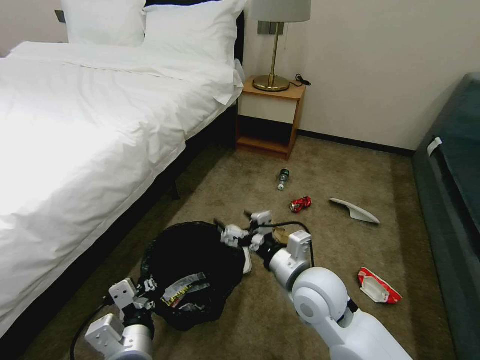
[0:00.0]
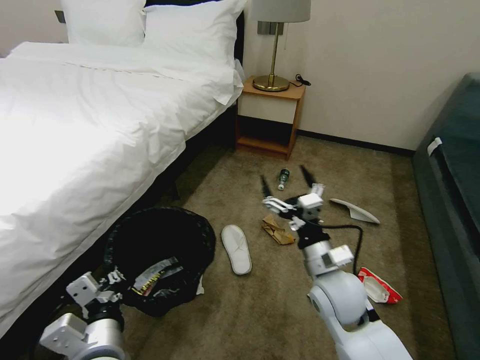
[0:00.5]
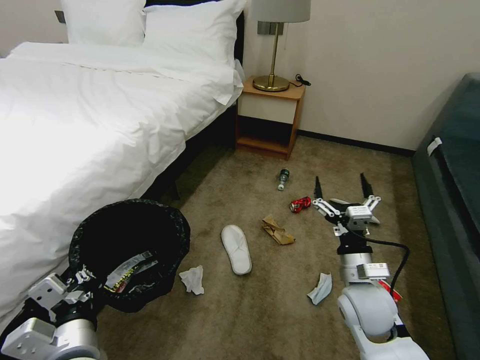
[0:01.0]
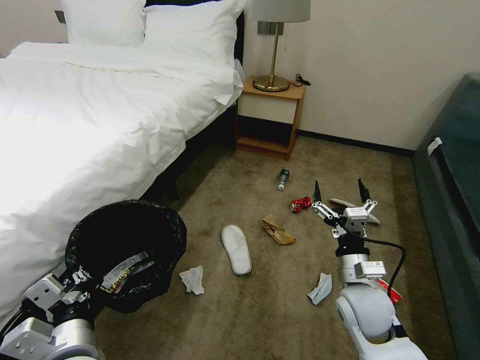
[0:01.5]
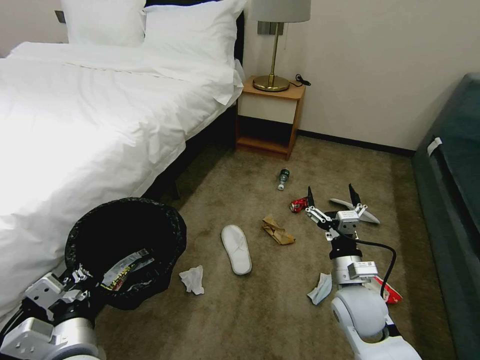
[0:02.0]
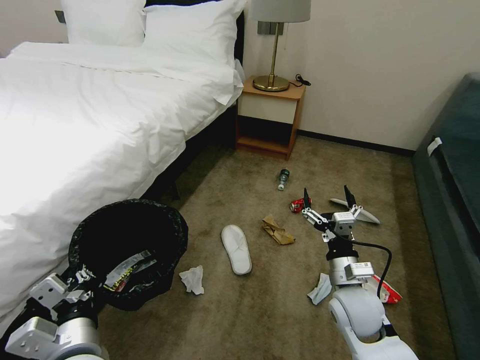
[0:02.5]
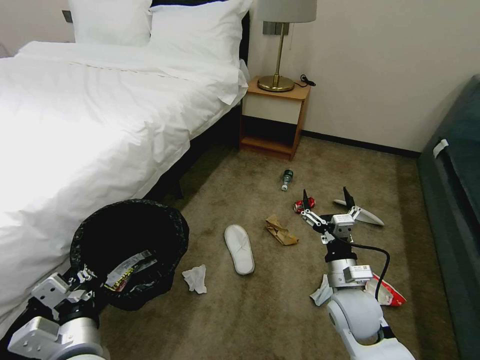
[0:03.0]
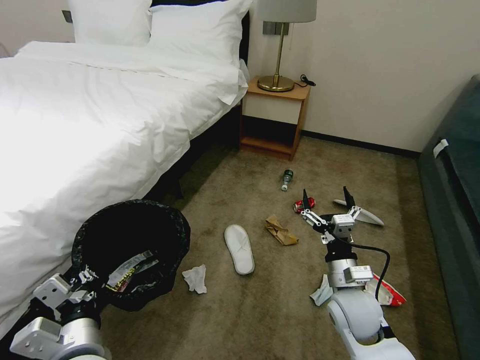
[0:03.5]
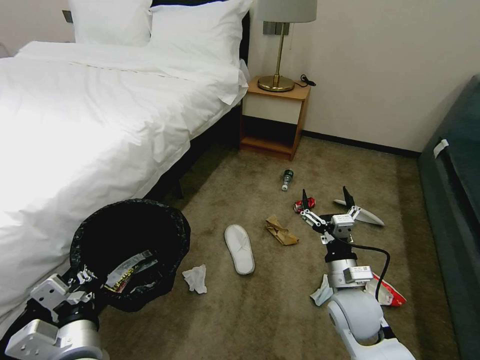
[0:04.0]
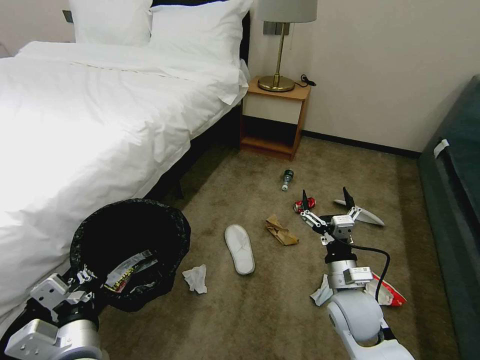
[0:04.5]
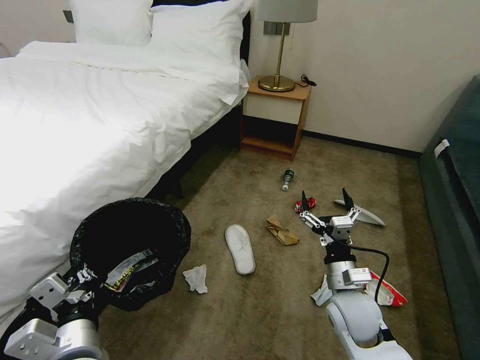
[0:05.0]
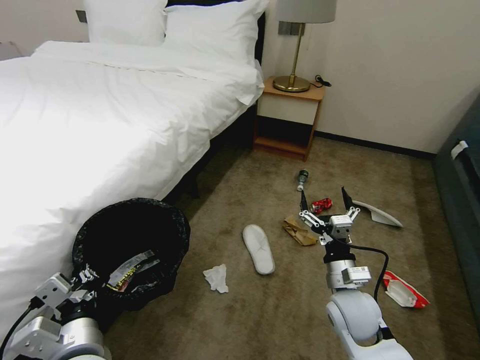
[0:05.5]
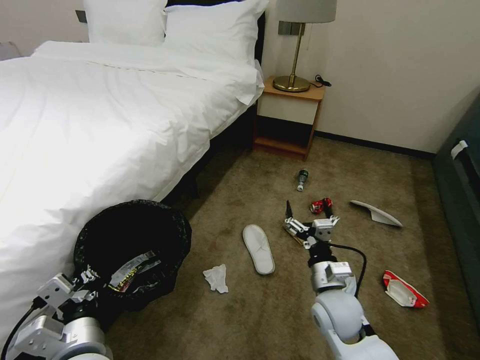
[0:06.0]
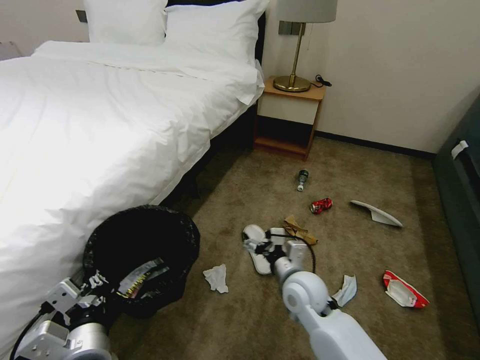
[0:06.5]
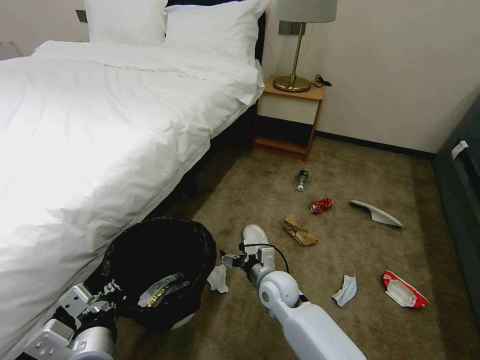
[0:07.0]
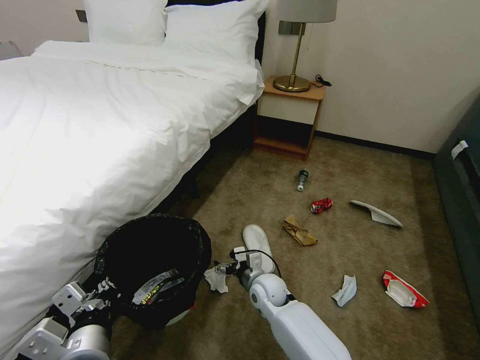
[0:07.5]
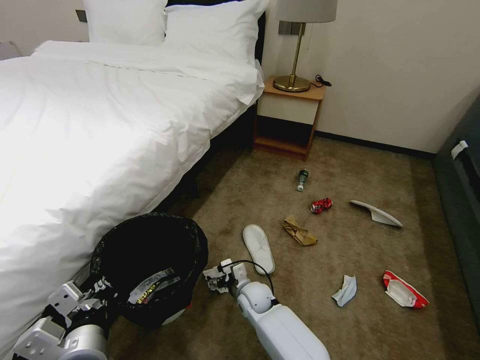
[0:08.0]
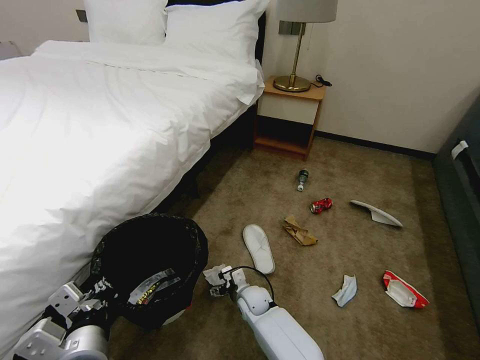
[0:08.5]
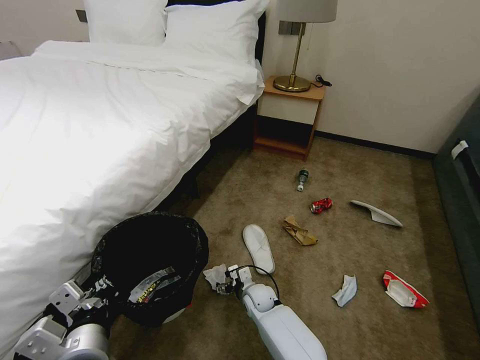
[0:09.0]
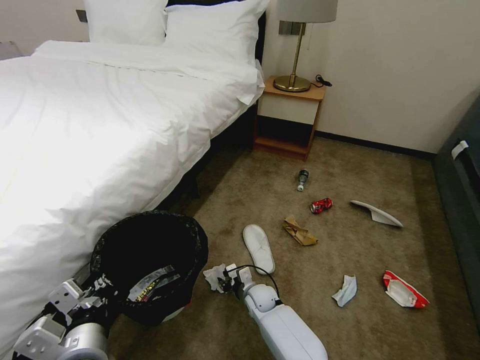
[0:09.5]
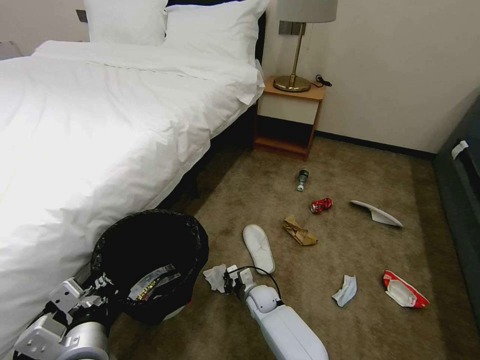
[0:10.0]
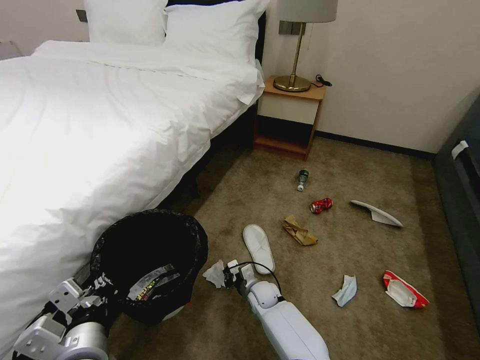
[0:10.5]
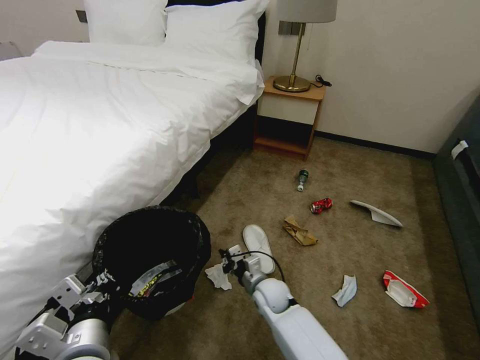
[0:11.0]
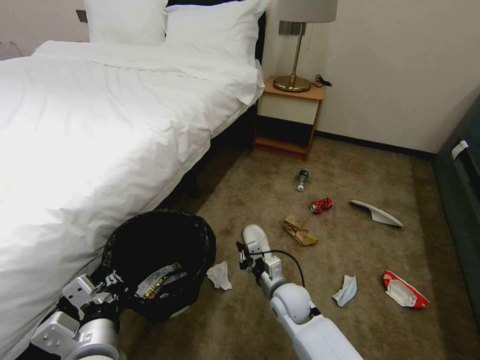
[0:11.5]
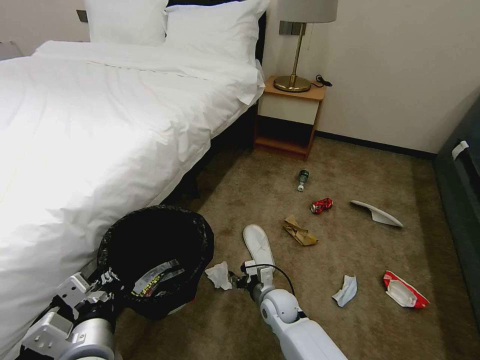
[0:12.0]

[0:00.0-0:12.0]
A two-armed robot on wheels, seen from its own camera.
Task of the whole recording: Pick up the trash bin, then pick up the garbage on the floor and place it into the trash bin.
0:00.0 to 0:02.0: The left gripper goes some 5 cm to the left; the right gripper is displaced to the right and downward by approximately 10 cm.
0:02.0 to 0:04.0: The two grippers keep their place.
0:06.0 to 0:08.0: The right gripper goes some 25 cm to the left, downward and forward.
0:08.0 to 0:10.0: The right gripper travels downward by some 5 cm, and closes up.
0:10.0 to 0:12.0: The right gripper heads upward, covering approximately 5 cm, and opens up.

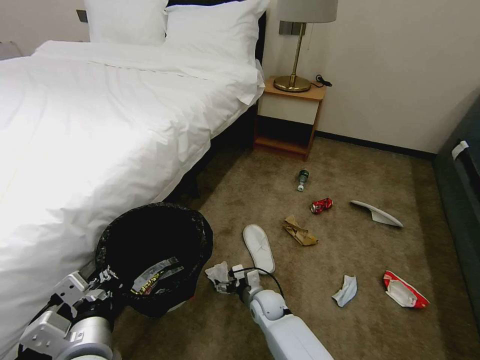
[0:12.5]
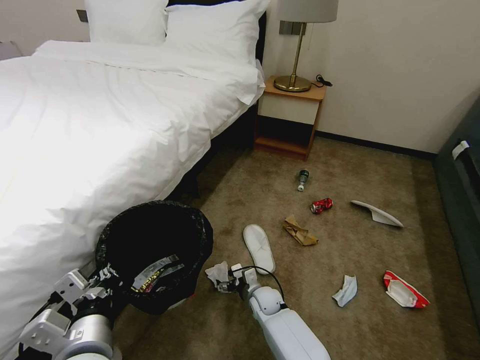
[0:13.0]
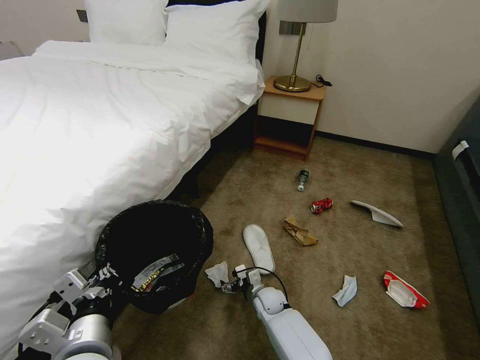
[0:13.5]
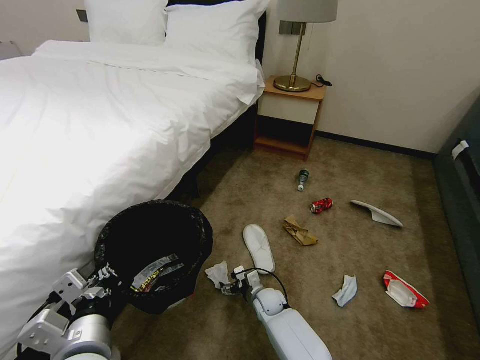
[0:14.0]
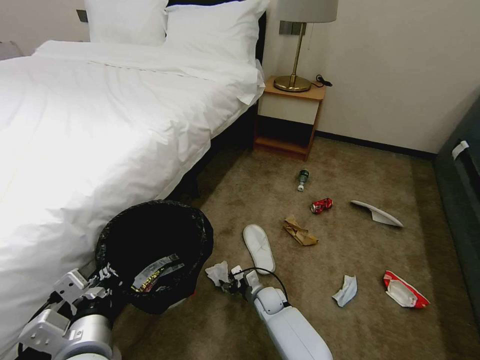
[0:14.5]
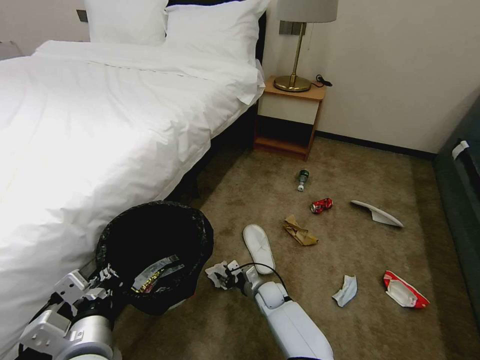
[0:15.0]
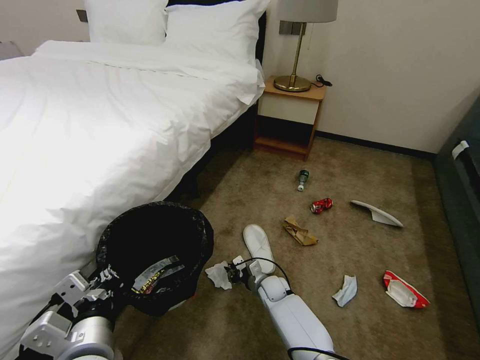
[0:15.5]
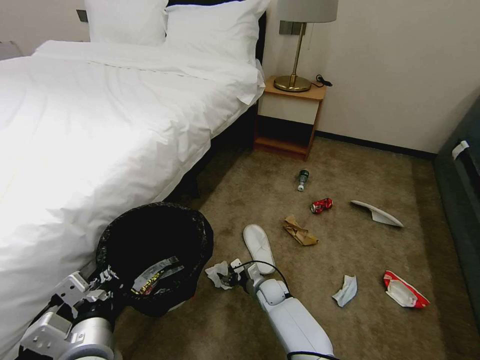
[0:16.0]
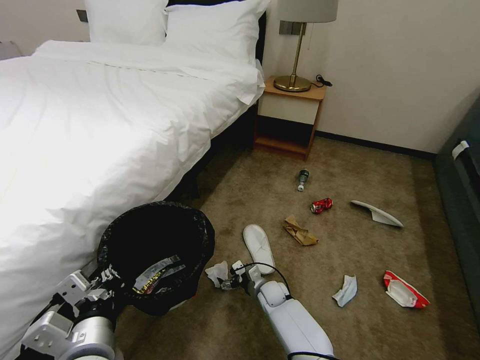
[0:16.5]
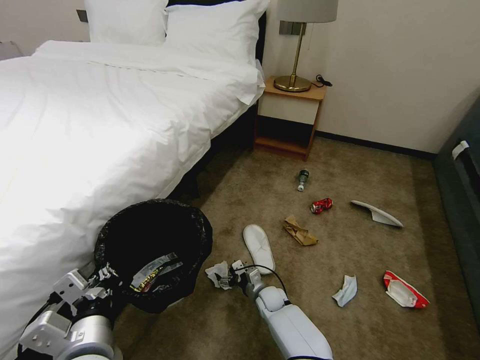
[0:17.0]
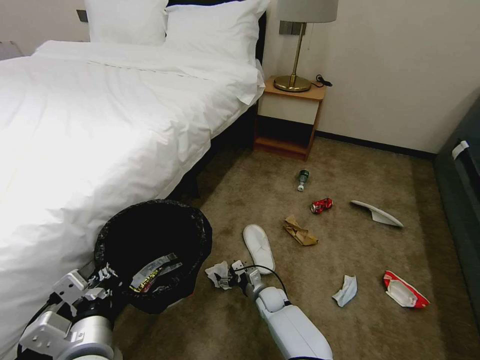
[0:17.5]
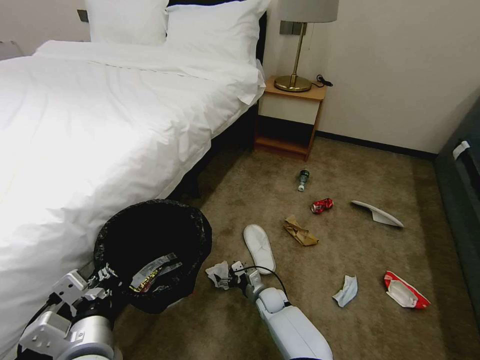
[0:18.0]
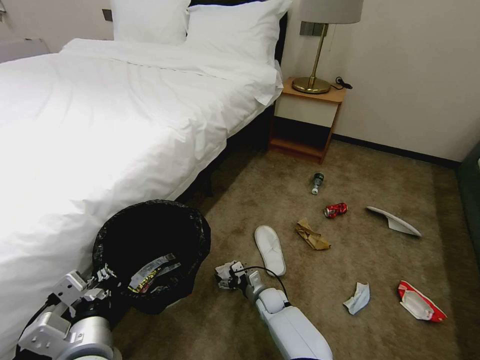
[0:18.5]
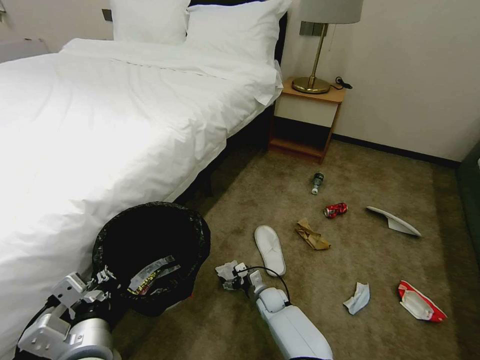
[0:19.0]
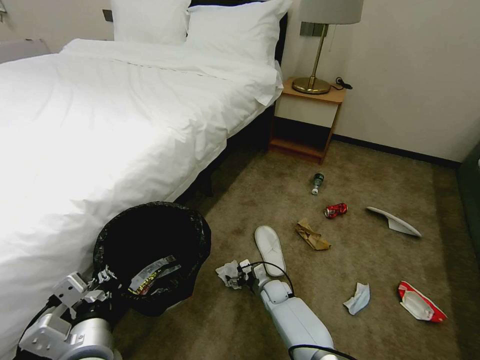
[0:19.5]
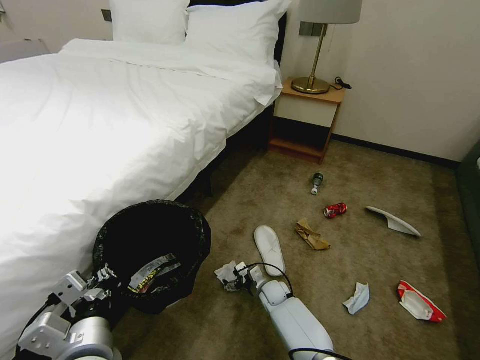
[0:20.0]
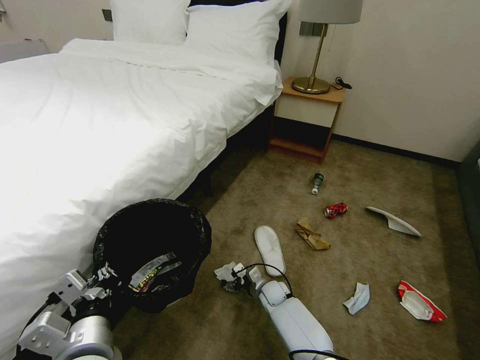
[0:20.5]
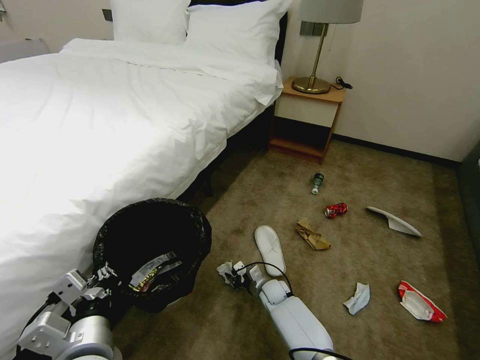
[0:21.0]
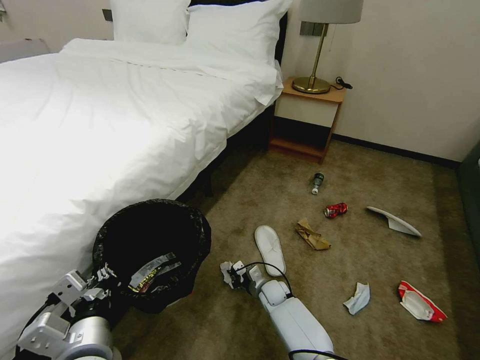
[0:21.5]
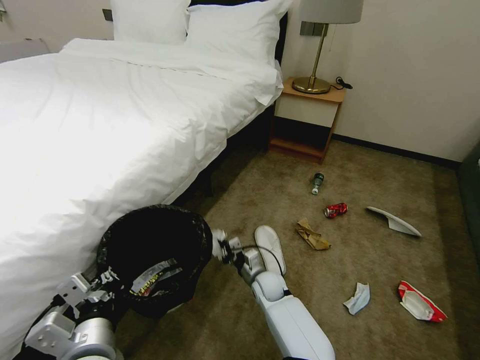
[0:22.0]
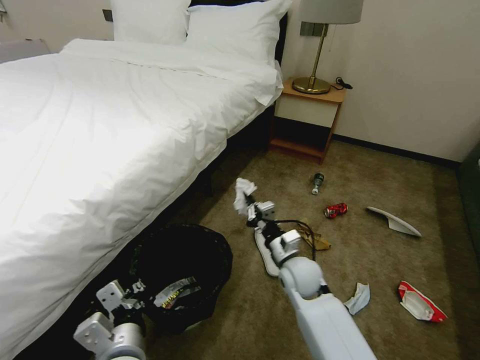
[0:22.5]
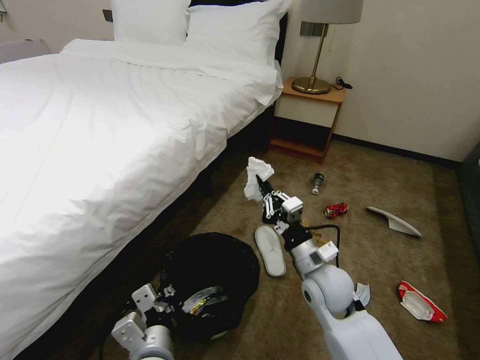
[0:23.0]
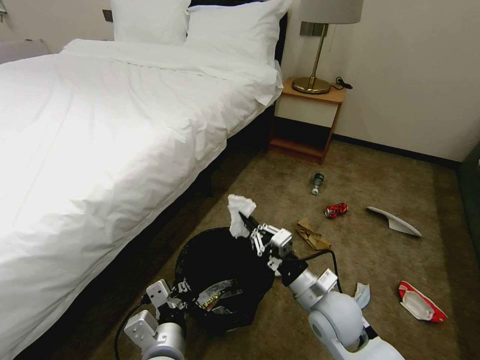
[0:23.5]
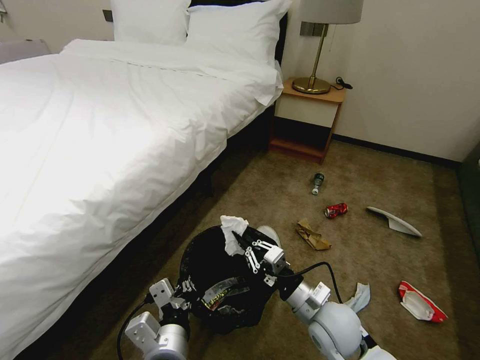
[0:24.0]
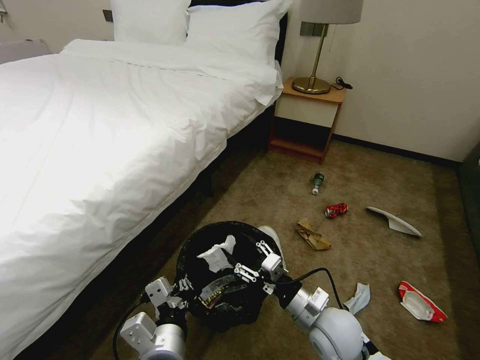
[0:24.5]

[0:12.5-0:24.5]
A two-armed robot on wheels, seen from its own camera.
Task of the whole recording: Pick up the trash bin, then pick up the garbage on the floor and place it into the trash bin.
0:12.5 to 0:14.5: The right gripper moves approximately 5 cm.
0:14.5 to 0:16.5: The right gripper closes and opens again.
0:18.5 to 0:20.5: The grippers move only a little.
0:20.5 to 0:22.5: The right gripper shifts some 20 cm upward, and closes its fingers, while the left gripper ends up about 5 cm from where it was.
0:22.5 to 0:24.5: The right gripper travels backward by about 10 cm, and opens, while the left gripper heads to the right, covering some 5 cm.

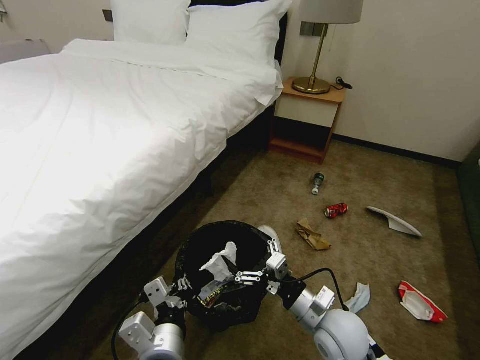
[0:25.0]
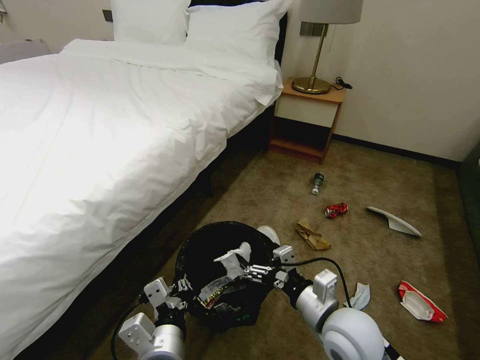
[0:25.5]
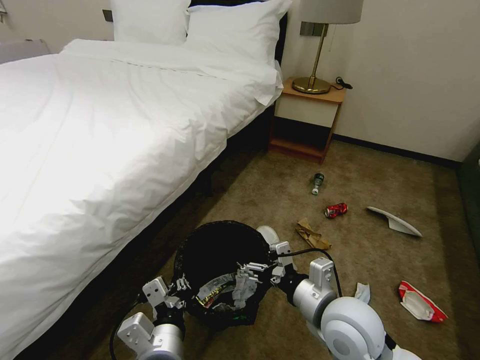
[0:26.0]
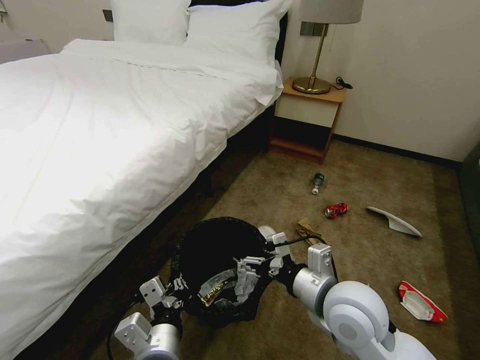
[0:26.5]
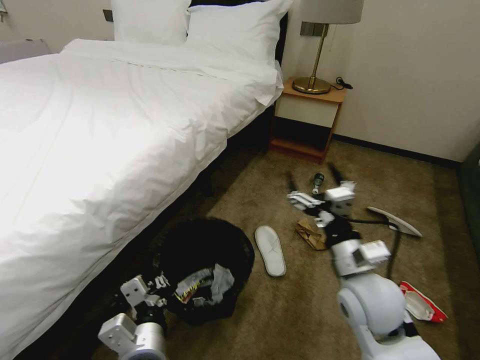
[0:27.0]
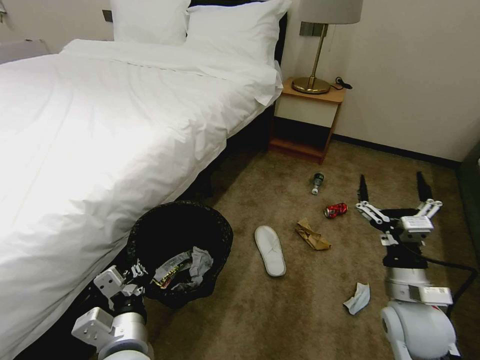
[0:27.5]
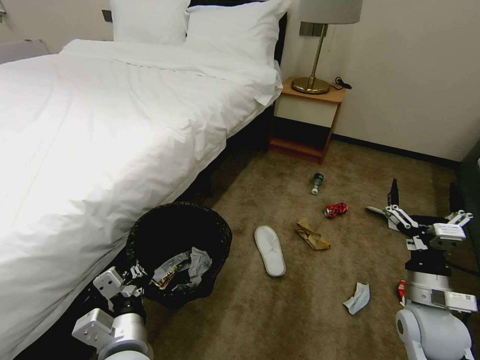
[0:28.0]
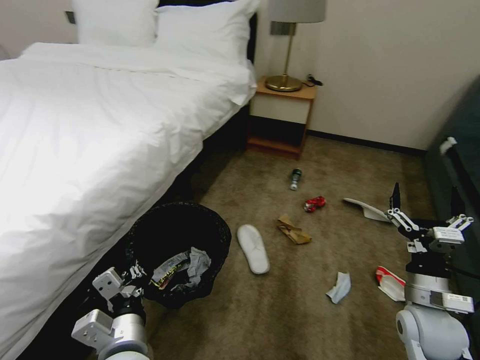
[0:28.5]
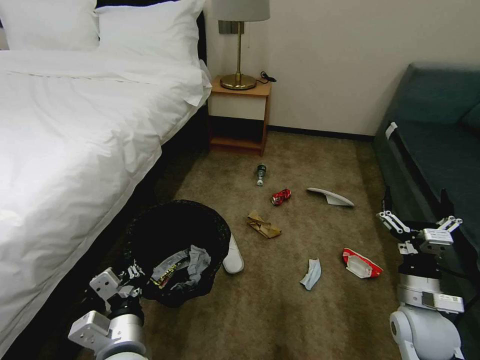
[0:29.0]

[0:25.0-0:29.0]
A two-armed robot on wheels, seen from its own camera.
Task of the whole recording: Pick up the trash bin, then pick up the garbage on the floor and place it into the trash bin.
0:25.0 to 0:27.0: The right gripper heads upward, covering some 10 cm.
0:27.0 to 0:29.0: The right gripper travels to the right and downward by approximately 15 cm.
